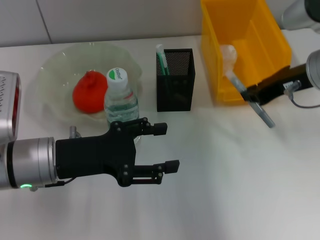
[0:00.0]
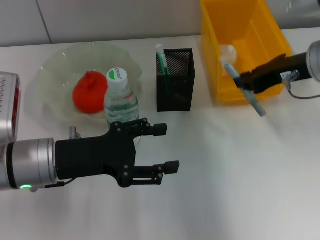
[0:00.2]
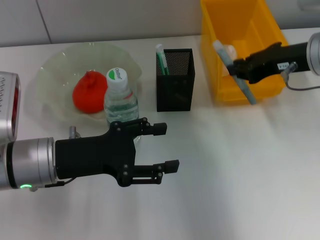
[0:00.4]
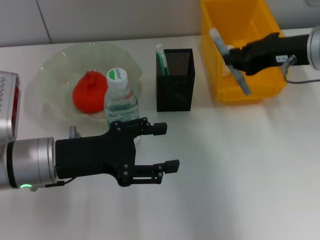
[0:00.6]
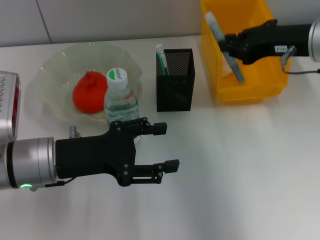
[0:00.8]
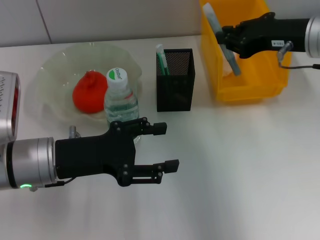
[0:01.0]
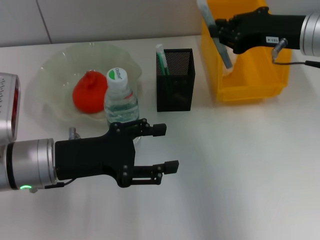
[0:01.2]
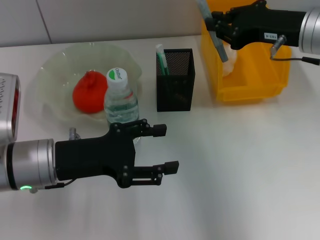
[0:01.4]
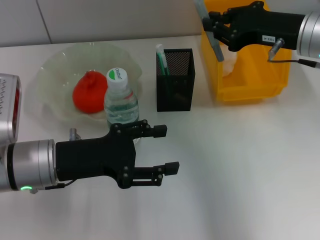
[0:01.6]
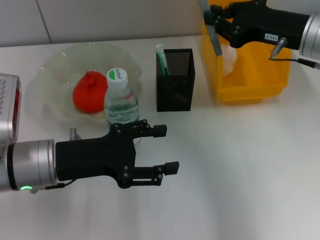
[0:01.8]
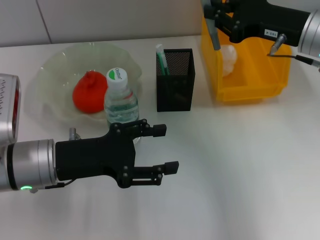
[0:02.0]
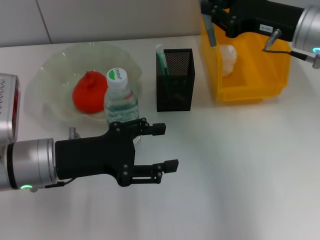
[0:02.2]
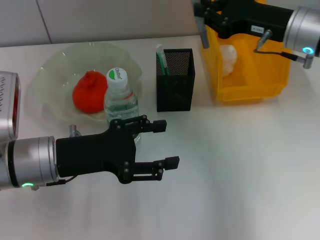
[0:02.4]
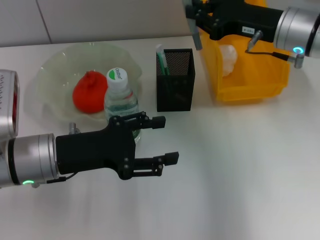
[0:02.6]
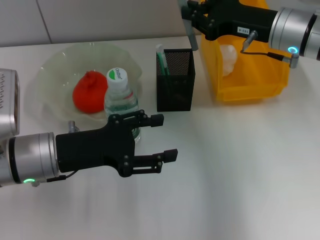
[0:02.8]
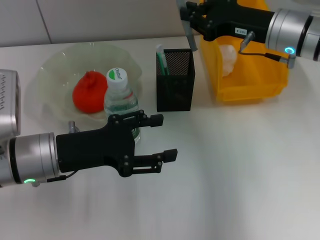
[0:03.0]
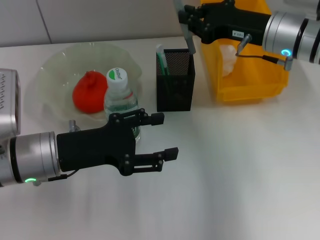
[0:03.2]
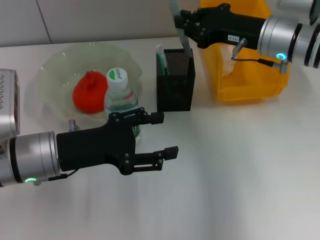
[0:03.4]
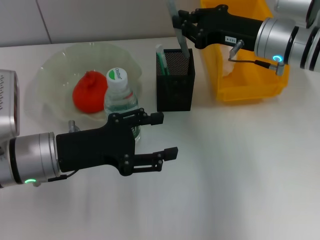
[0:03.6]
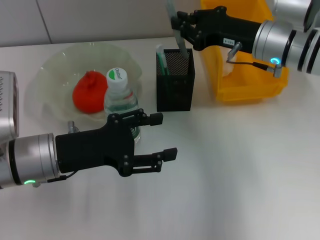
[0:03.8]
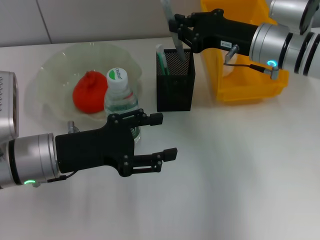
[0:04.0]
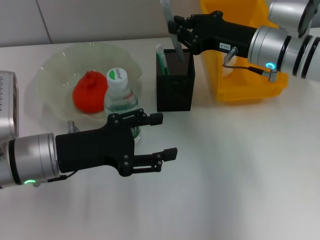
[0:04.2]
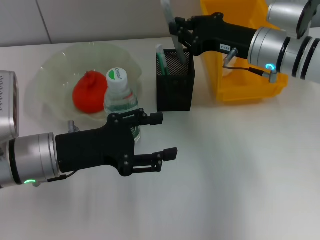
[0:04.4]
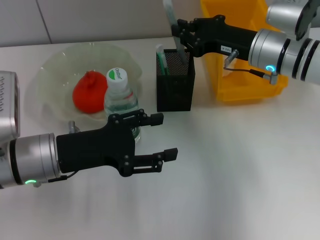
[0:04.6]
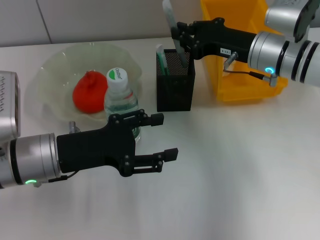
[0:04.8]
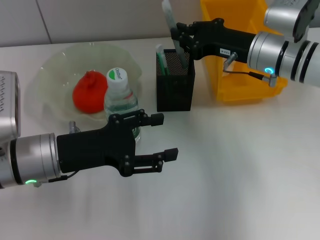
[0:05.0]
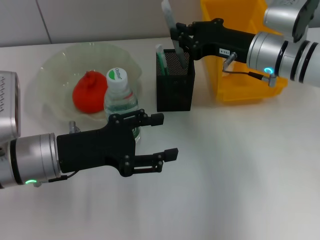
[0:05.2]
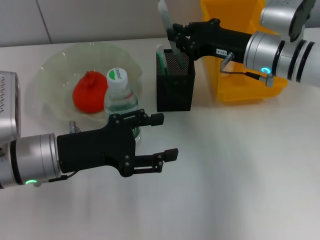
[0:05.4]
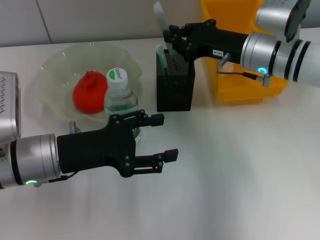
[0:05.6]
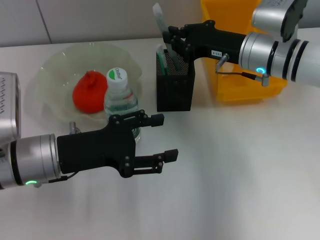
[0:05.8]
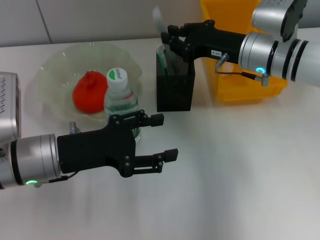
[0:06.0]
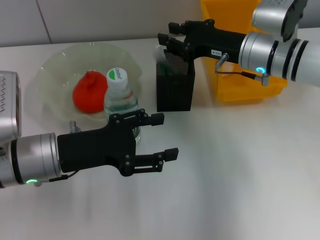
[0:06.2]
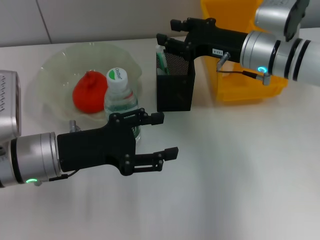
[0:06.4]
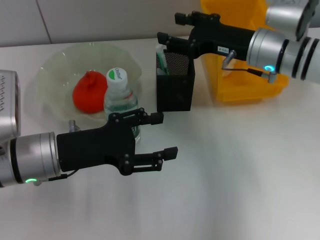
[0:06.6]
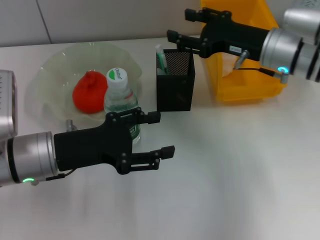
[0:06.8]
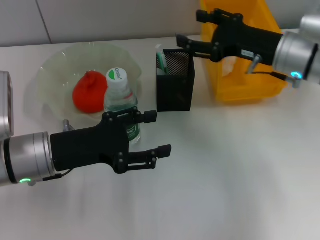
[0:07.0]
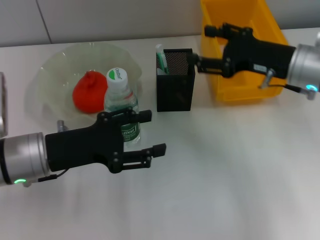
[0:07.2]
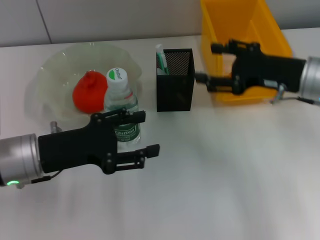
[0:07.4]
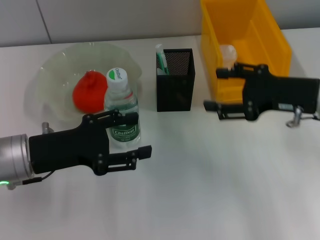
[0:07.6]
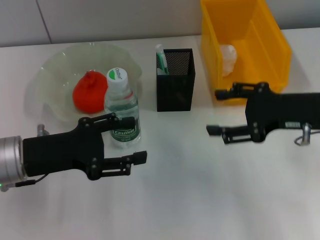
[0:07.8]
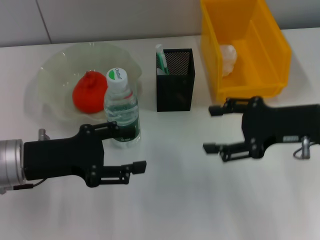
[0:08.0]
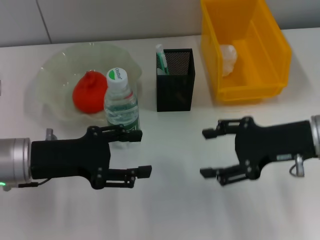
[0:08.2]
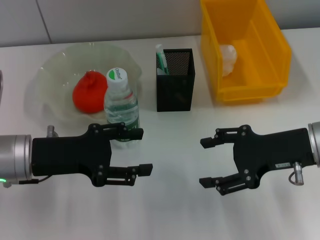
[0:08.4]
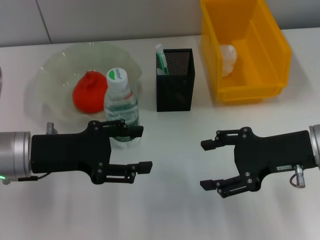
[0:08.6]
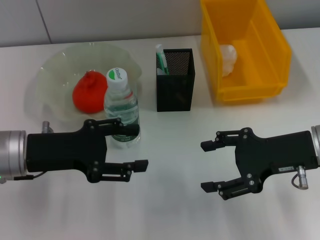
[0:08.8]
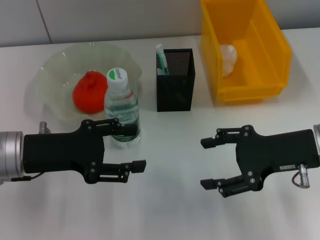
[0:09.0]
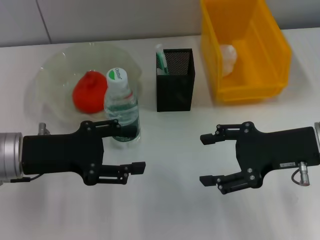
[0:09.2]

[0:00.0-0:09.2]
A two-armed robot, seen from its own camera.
Step, 0:00.0 to 0:06.2: Place the gray glue into the pen holder with the right hand.
0:01.6 to 0:03.0: The right gripper shifts by some 5 cm.
0:03.0 to 0:04.6: The grippers move only a little.
0:04.6 to 0:06.2: Neither gripper changes place.
0:06.2 to 0:07.6: The right gripper moves backward and to the right, approximately 10 cm, and opens up.
0:07.6 to 0:09.2: The right gripper shifts by about 5 cm.

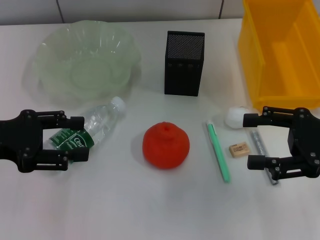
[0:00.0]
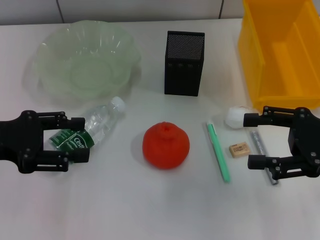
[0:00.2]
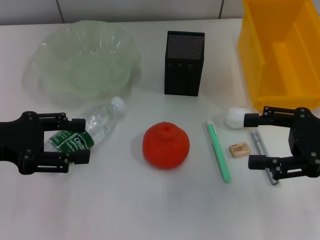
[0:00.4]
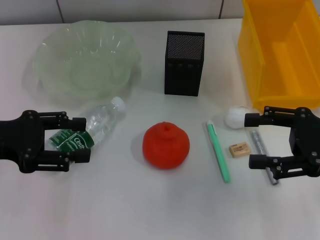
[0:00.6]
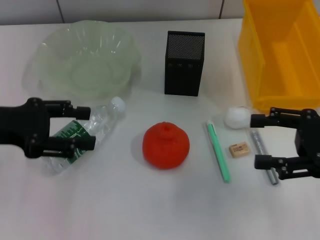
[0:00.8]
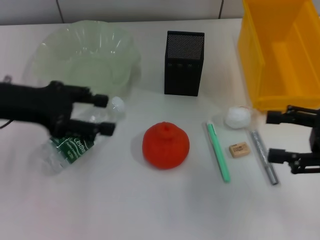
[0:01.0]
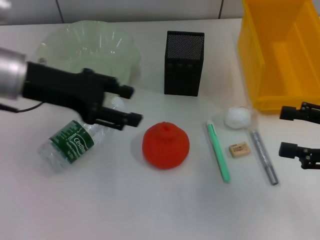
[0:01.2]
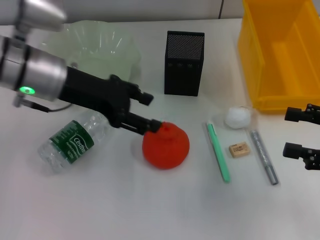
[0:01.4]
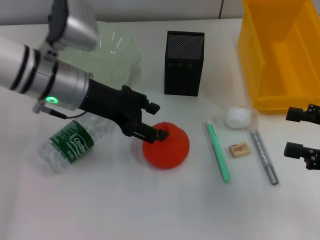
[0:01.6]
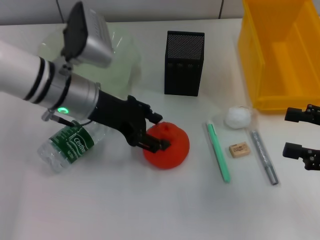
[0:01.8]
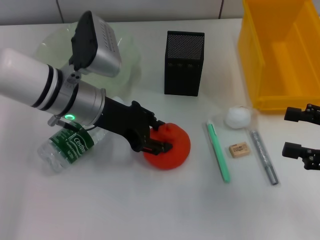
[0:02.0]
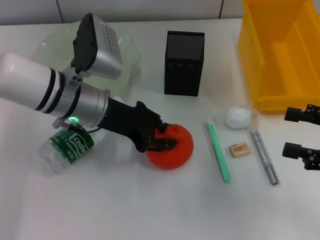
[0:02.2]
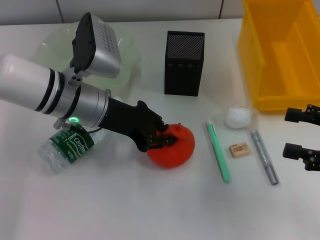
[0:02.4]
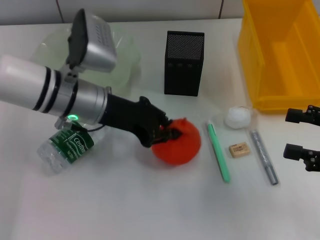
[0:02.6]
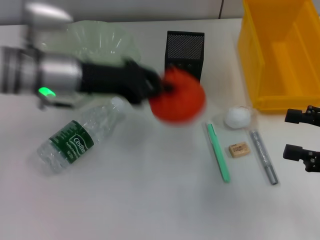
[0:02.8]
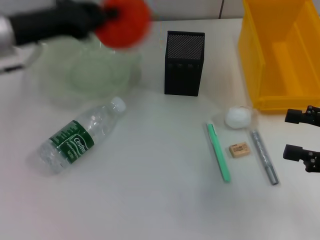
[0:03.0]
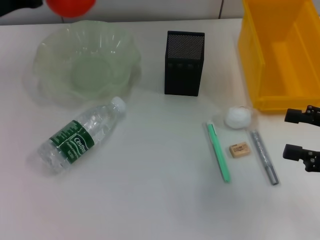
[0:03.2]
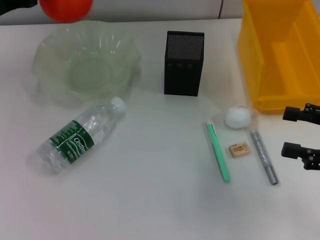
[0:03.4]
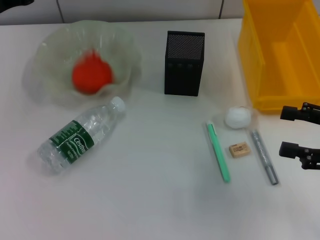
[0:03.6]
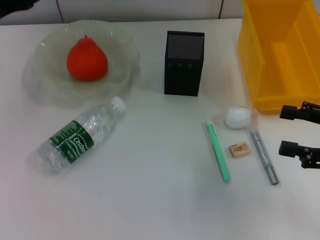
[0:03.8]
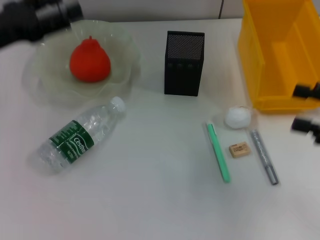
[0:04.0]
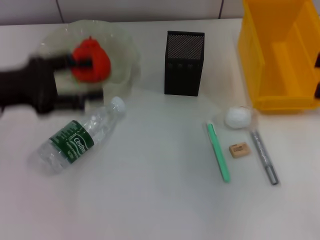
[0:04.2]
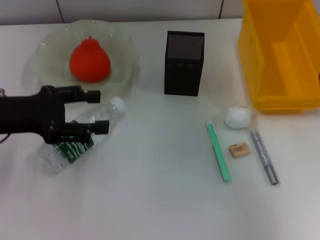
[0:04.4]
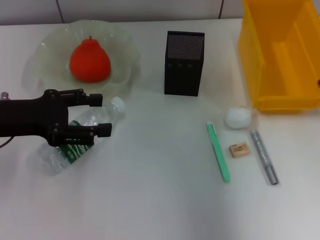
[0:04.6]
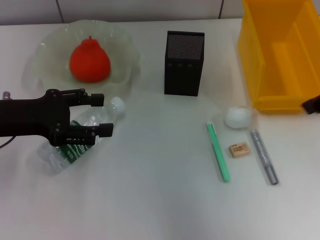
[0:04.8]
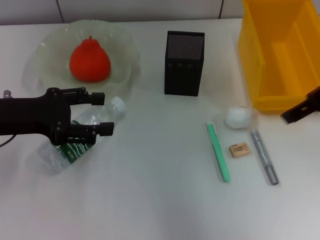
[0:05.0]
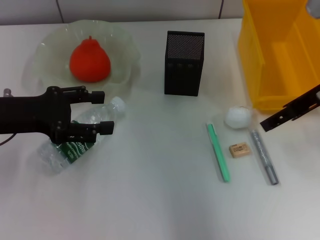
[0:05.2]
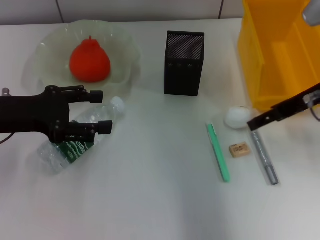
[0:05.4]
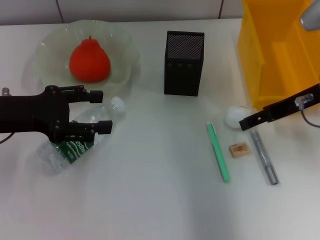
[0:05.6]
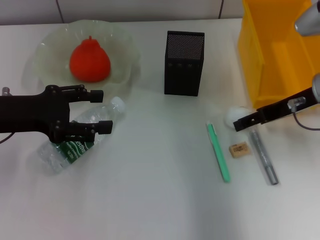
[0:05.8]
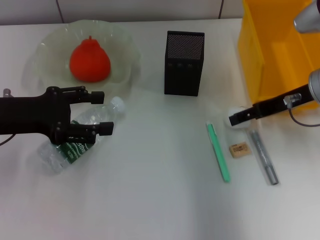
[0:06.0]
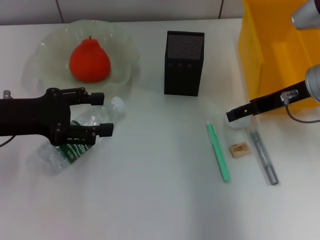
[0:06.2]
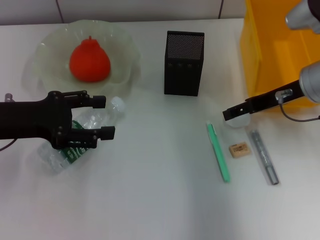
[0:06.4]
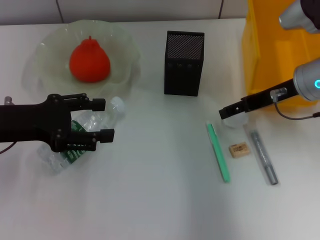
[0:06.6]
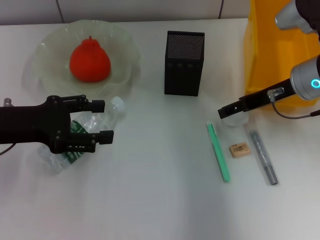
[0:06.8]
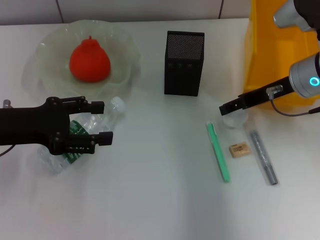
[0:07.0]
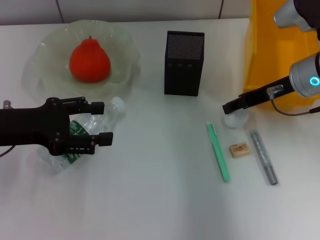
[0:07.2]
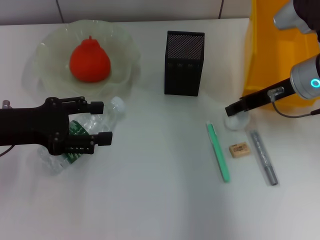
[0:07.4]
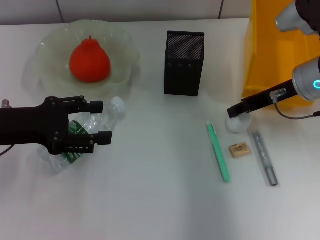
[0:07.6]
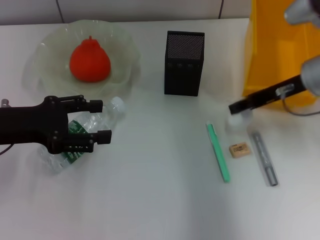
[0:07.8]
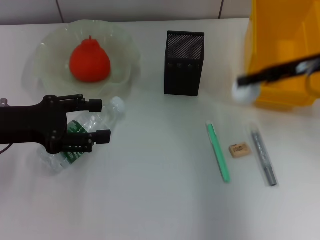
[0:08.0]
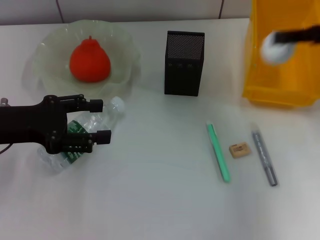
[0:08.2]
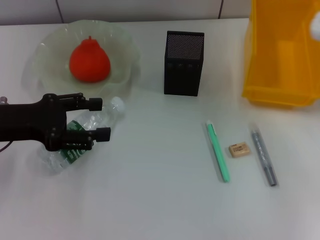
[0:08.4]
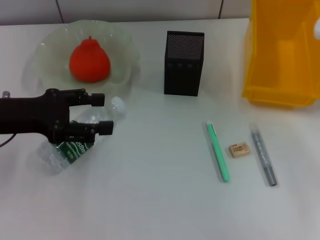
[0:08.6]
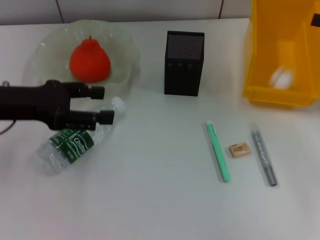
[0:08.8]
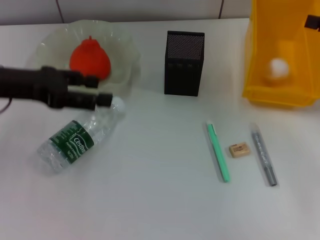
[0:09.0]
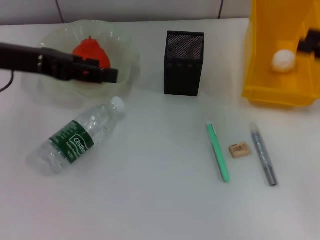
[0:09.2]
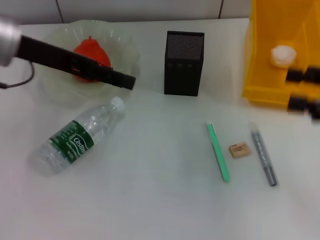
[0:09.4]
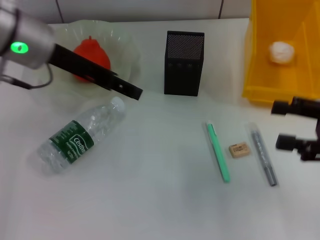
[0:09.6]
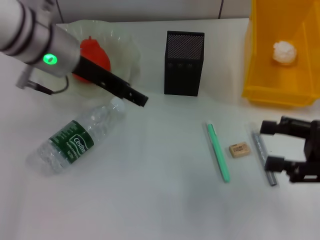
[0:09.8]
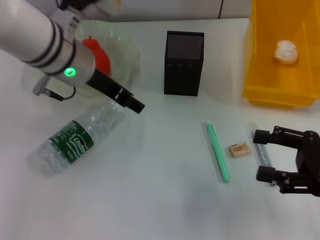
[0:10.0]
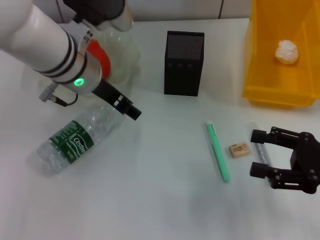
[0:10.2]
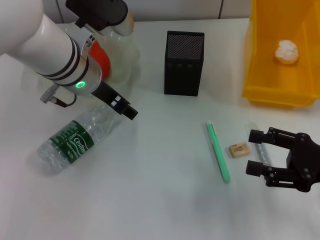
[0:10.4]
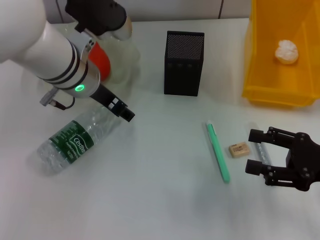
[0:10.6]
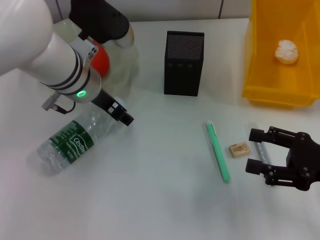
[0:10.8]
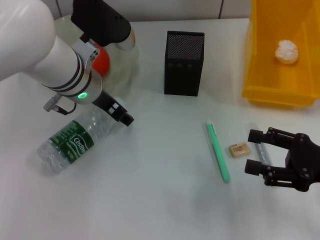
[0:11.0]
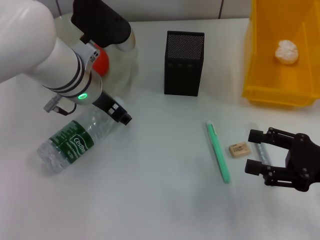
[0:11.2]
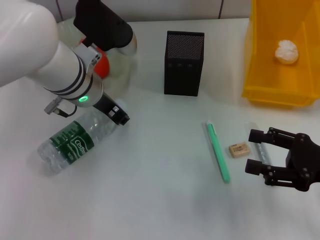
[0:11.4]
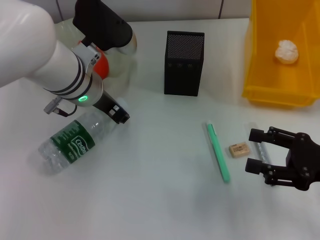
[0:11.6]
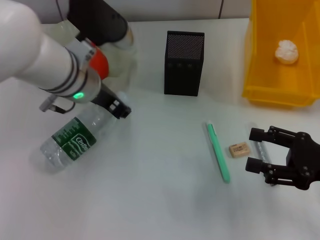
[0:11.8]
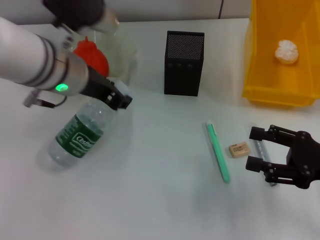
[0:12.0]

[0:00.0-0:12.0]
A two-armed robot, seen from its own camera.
Step, 0:00.0 to 0:02.2: Grab the orange with the left hand.
Step, 0:02.4 to 0:03.6: Place the orange into the fruit bowl with the left hand.
Step, 0:04.0 to 0:07.4: Grab the paper ball with the right hand.
Step, 0:07.6 to 0:09.2: Place the paper ball into the trash can with the right hand.
Step, 0:09.4 to 0:11.4: Grab the water bottle with the left hand.
0:00.0 to 0:01.6: The right gripper shifts by roughly 5 cm. The left gripper travels to the right and forward by some 20 cm.
0:01.6 to 0:03.0: The left gripper moves to the left, approximately 10 cm, and closes its fingers.
0:03.0 to 0:04.4: The left gripper moves backward, approximately 5 cm, and opens. Meanwhile the right gripper goes roughly 15 cm upward.
0:04.4 to 0:06.0: The right gripper heads downward, to the left and forward, covering approximately 20 cm.
0:06.0 to 0:07.6: The right gripper closes up.
0:07.6 to 0:09.0: The right gripper is displaced to the right by approximately 15 cm, and opens its fingers. Meanwhile the left gripper heads upward, covering approximately 5 cm.
0:09.0 to 0:10.4: The right gripper travels backward, downward and to the left by some 15 cm; the left gripper travels to the right by about 15 cm.
0:10.4 to 0:12.0: The left gripper closes.

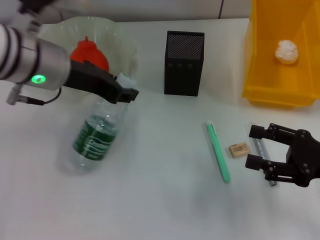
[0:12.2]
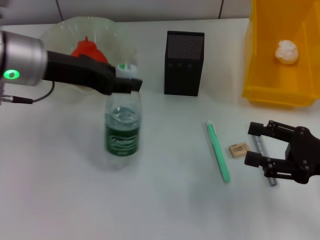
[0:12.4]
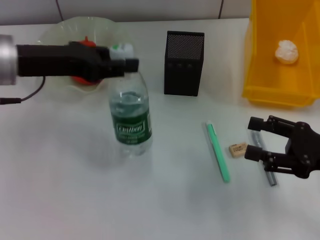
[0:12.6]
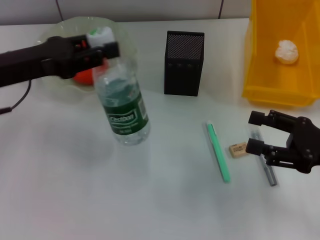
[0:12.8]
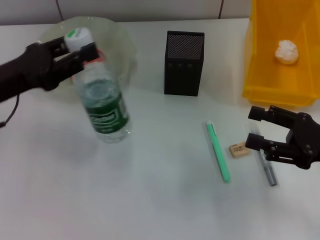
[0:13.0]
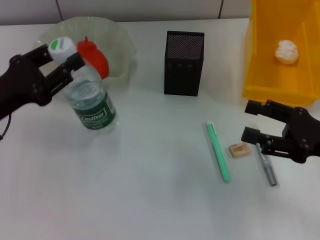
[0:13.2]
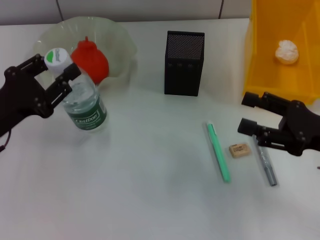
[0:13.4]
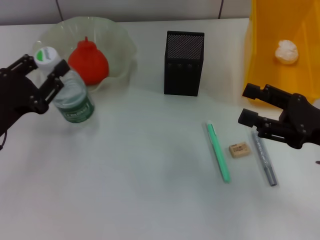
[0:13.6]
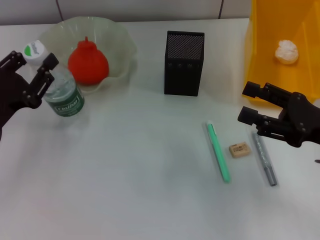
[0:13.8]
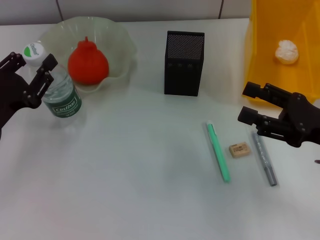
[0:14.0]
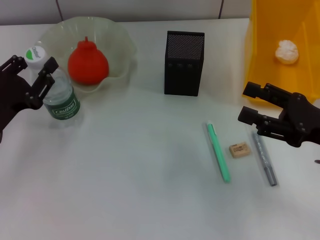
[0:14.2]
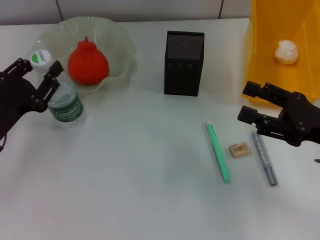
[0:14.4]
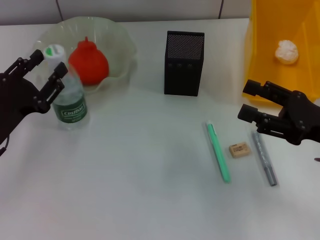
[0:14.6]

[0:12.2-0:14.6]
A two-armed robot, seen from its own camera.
Step, 0:12.2 to 0:14.6: Place the water bottle on the table with the left hand.
0:12.2 to 0:13.4: The left gripper goes about 20 cm to the left, downward and backward.
0:13.4 to 0:14.6: The grippers make only small movements.
